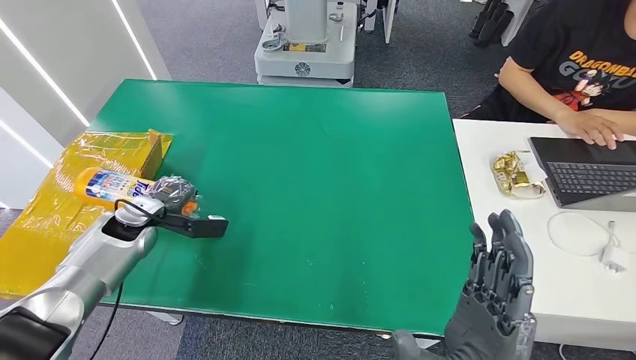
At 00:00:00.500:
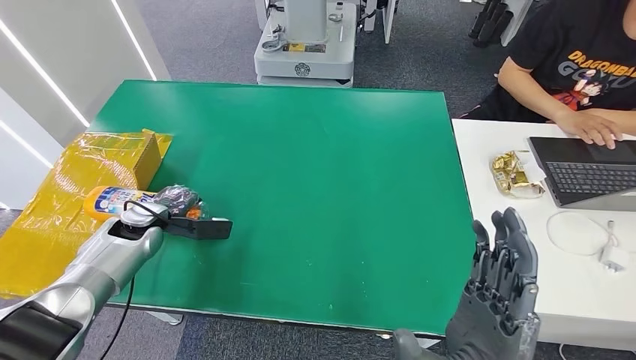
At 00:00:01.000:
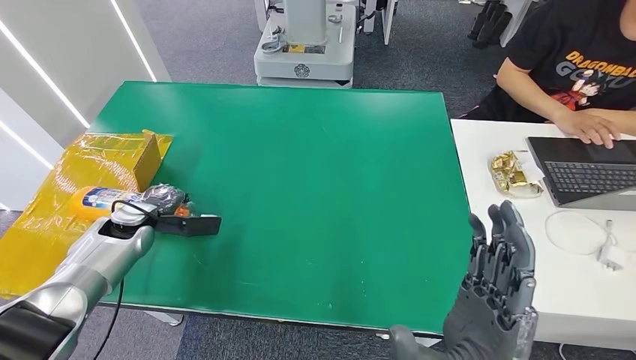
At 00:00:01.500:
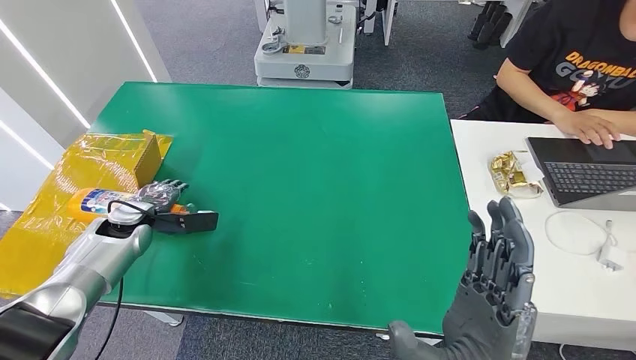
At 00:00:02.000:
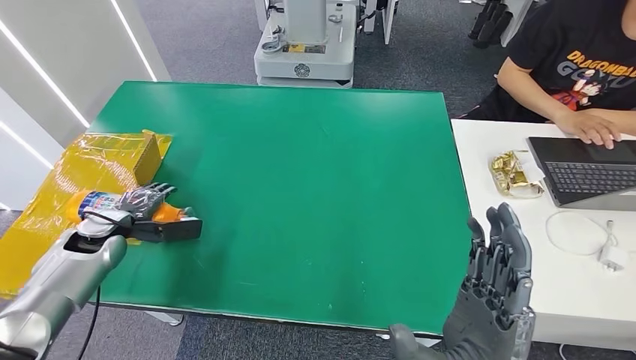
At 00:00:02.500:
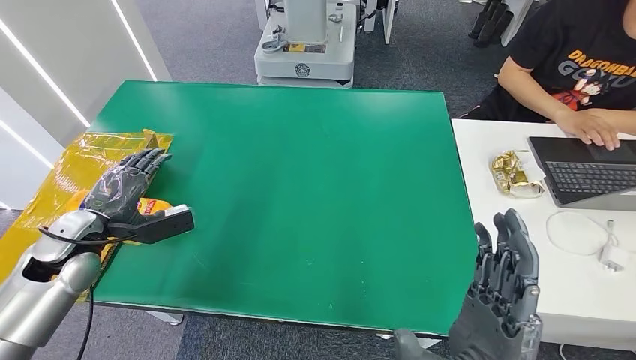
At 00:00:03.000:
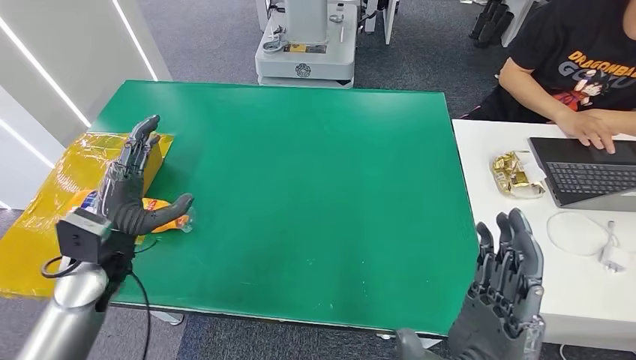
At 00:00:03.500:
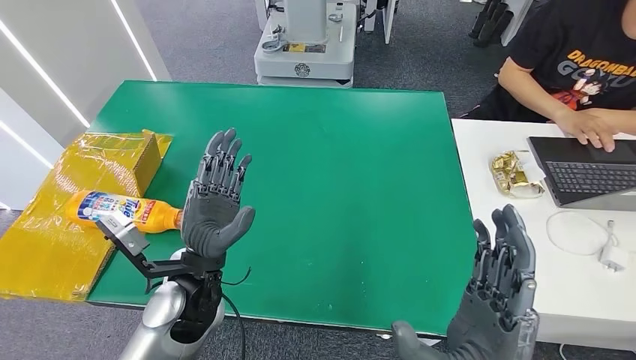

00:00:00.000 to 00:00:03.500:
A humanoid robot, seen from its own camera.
Step, 00:00:00.000 to 00:00:03.500: Turn the bottle to the front side.
00:00:00.000 to 00:00:02.000: The left hand shifts by roughly 5 cm.
00:00:02.000 to 00:00:03.500: The left hand moves to the right and backward, about 30 cm.

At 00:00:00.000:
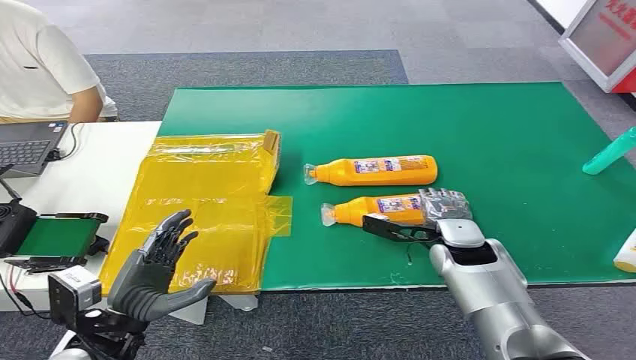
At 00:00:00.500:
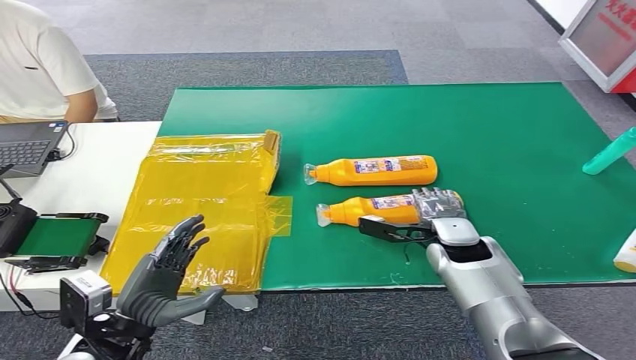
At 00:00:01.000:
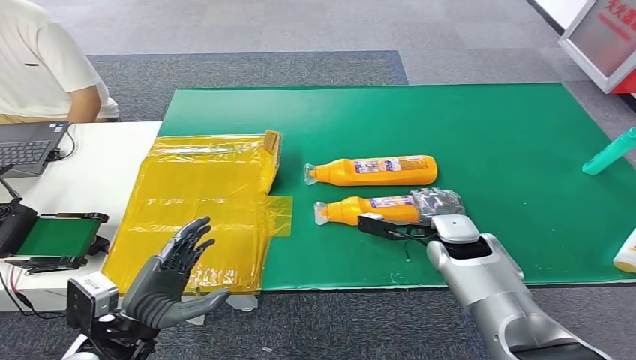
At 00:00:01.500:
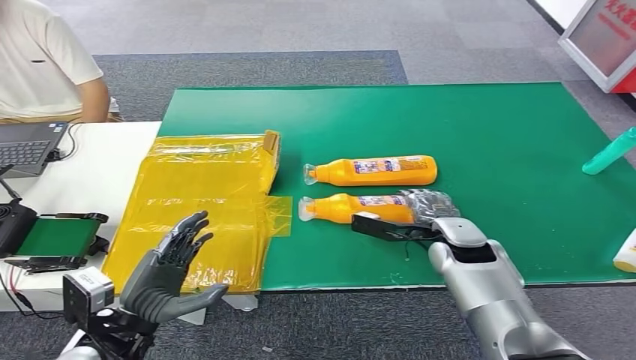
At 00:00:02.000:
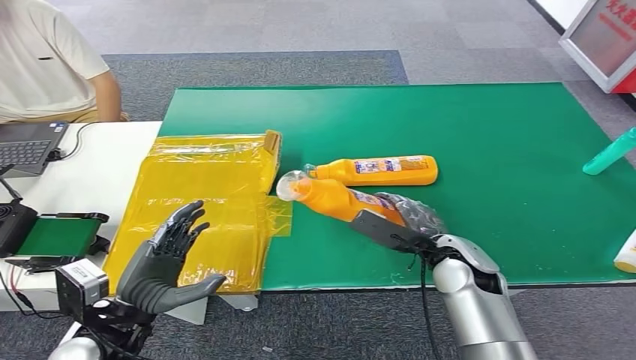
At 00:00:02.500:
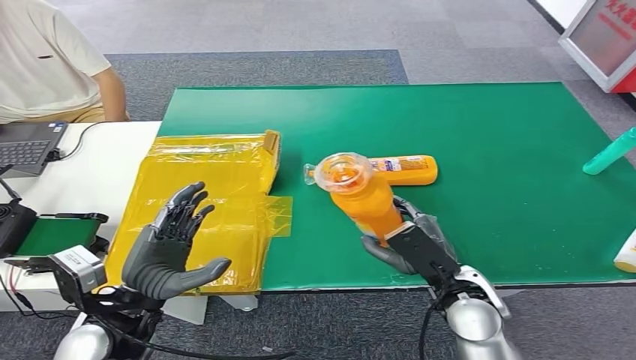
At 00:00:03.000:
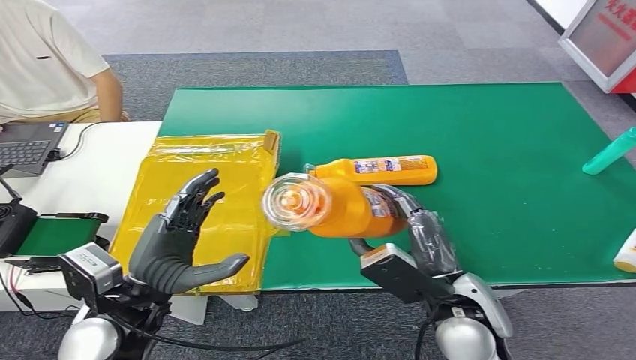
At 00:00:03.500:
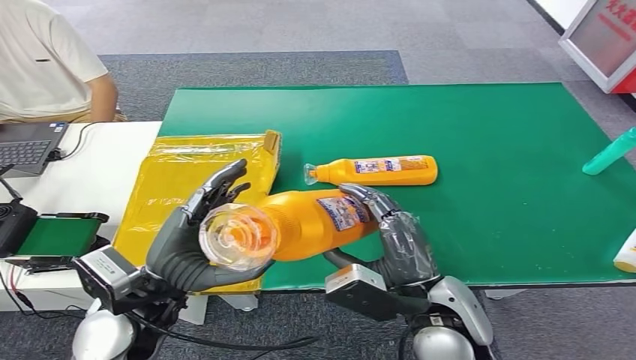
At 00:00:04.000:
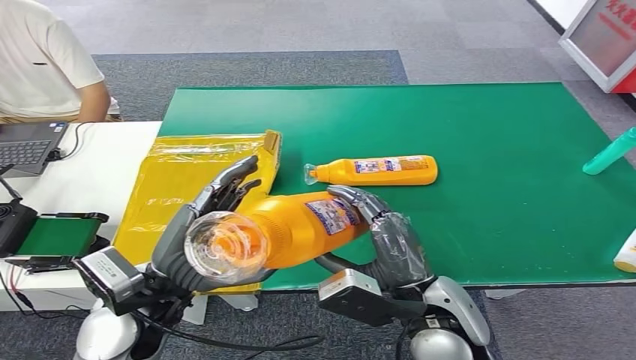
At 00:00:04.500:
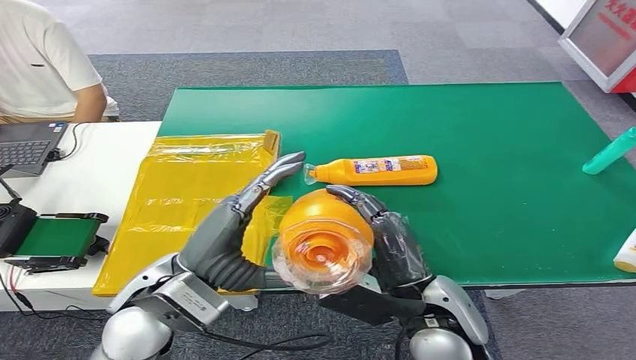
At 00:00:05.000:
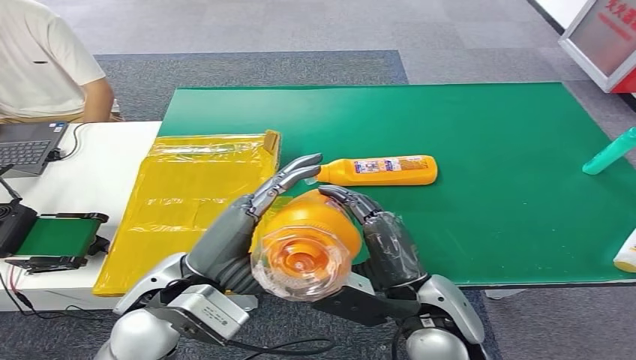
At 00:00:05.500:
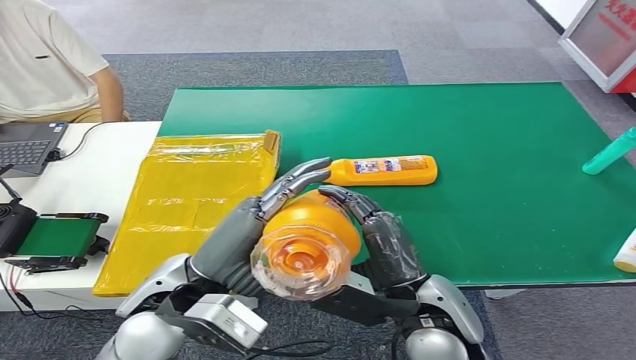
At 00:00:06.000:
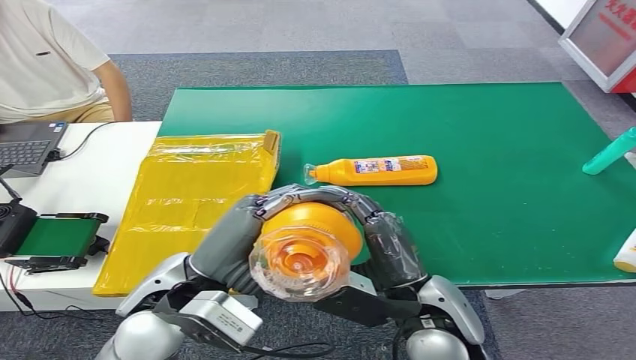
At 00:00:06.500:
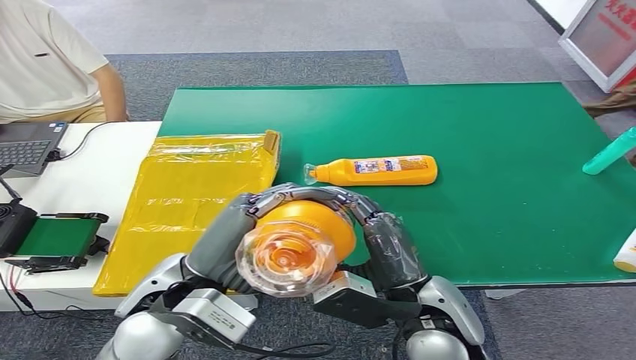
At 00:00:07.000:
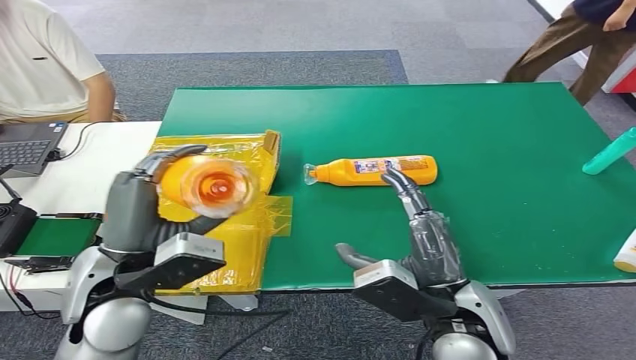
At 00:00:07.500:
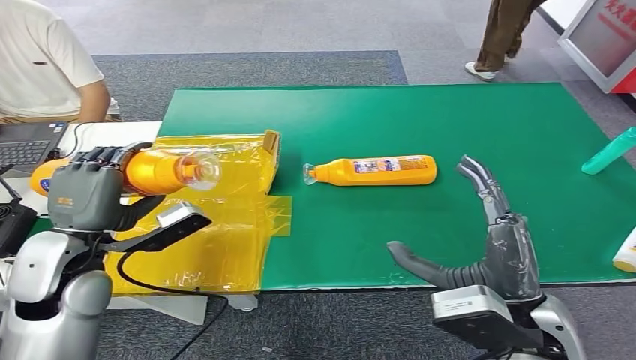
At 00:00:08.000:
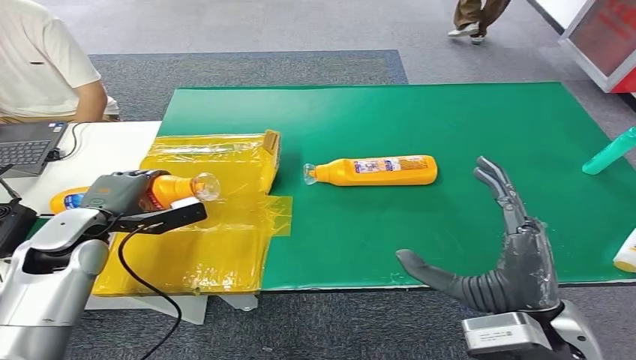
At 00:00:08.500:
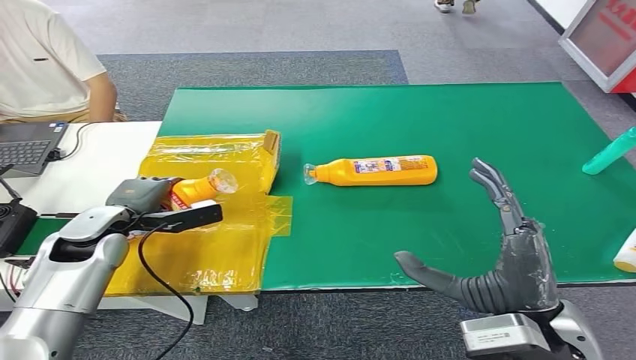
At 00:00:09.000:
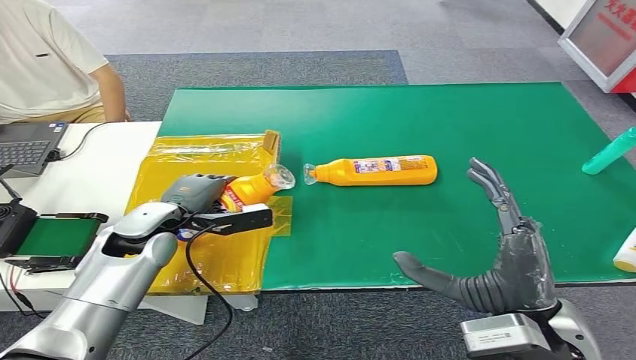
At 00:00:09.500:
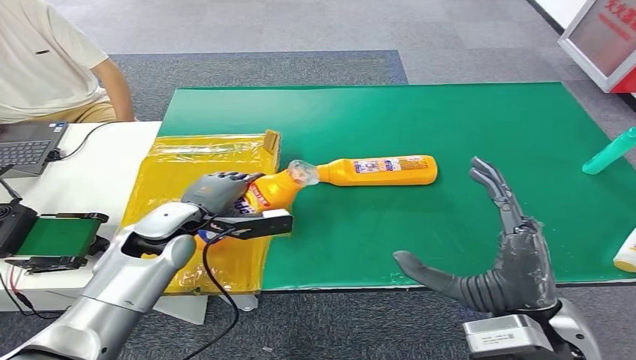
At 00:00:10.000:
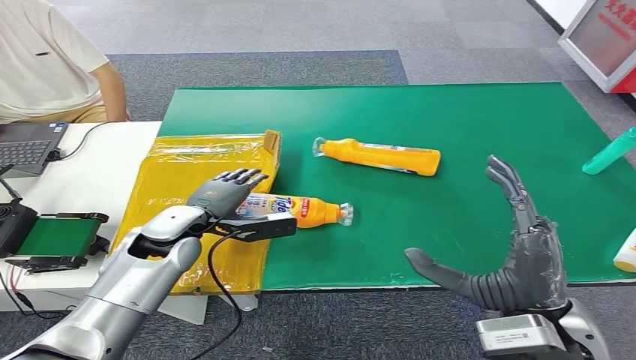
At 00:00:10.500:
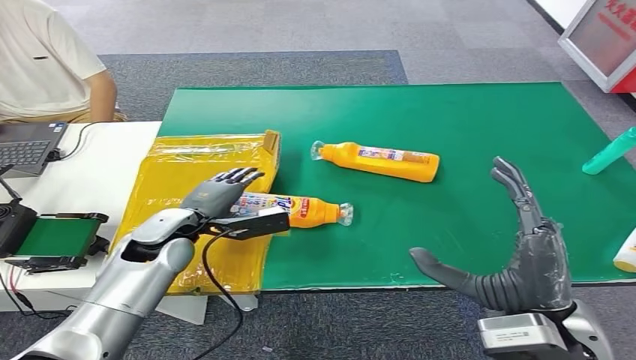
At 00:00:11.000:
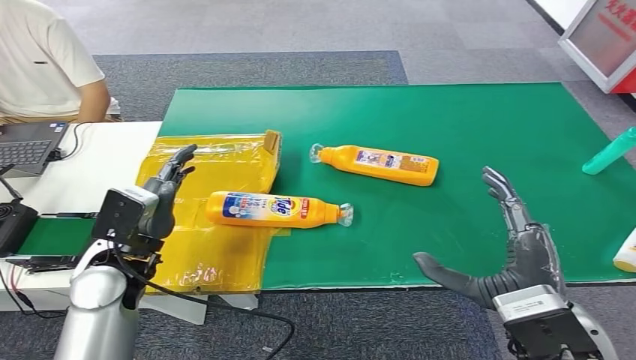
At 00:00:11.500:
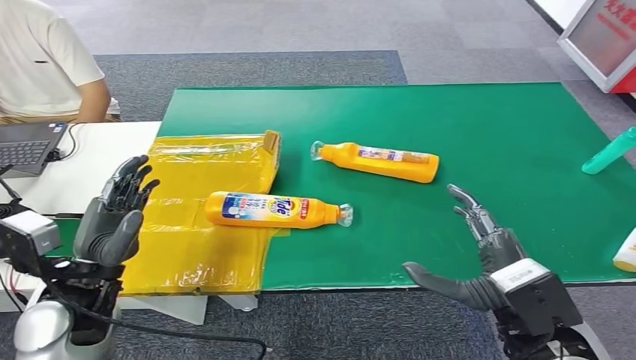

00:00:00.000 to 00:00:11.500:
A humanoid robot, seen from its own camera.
Step, 00:00:00.000 to 00:00:02.000: Pick up the bottle from the table.
Step, 00:00:04.500 to 00:00:11.000: Turn the bottle to the front side.
00:00:02.000 to 00:00:04.000: The right hand moves backward, upward and to the left, roughly 15 cm. Meanwhile the left hand is displaced upward and to the right by about 10 cm.
00:00:04.000 to 00:00:06.000: The left hand moves roughly 5 cm.
